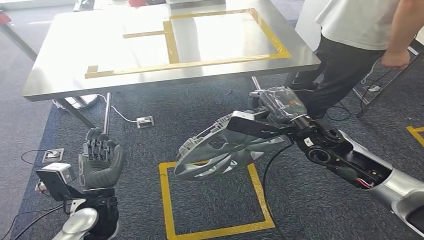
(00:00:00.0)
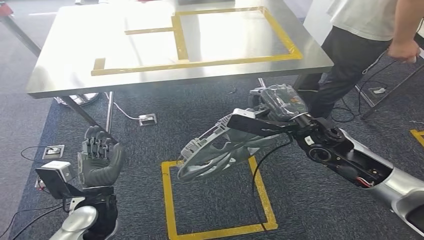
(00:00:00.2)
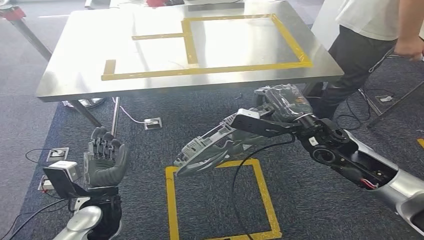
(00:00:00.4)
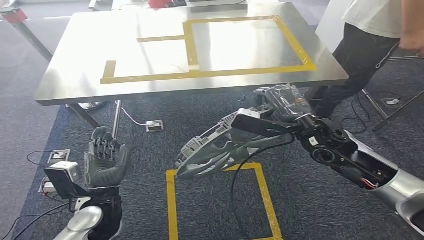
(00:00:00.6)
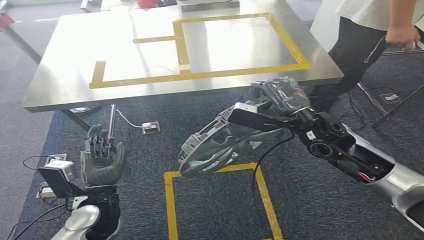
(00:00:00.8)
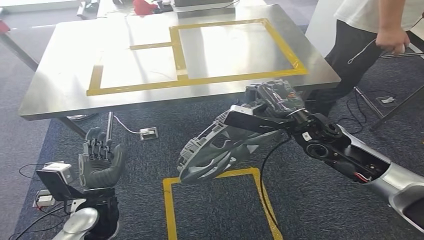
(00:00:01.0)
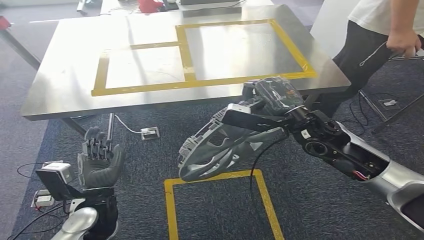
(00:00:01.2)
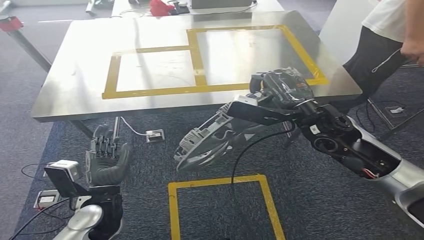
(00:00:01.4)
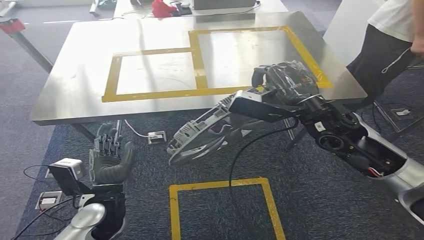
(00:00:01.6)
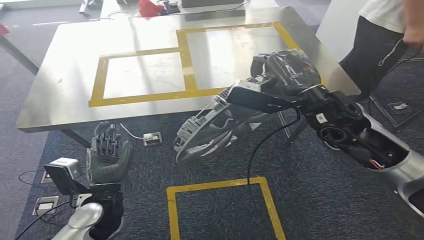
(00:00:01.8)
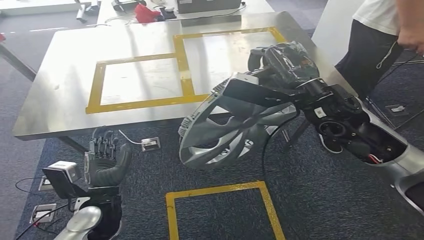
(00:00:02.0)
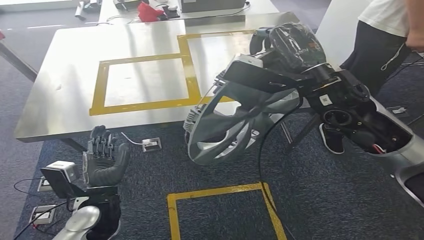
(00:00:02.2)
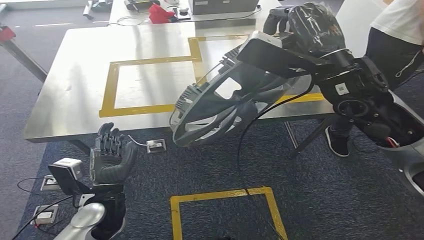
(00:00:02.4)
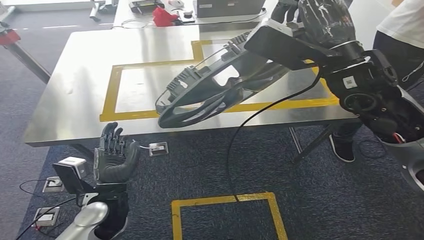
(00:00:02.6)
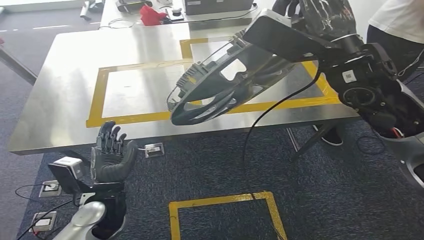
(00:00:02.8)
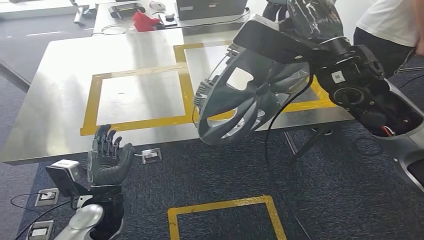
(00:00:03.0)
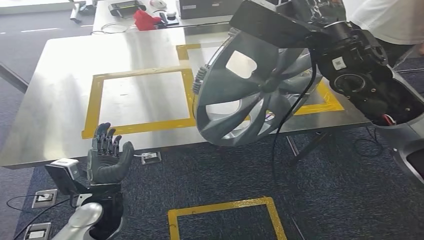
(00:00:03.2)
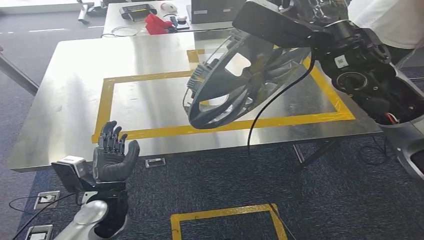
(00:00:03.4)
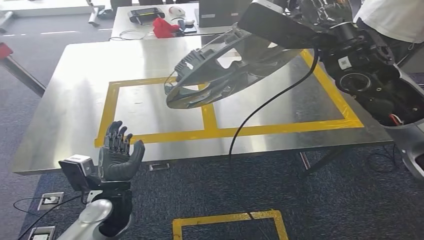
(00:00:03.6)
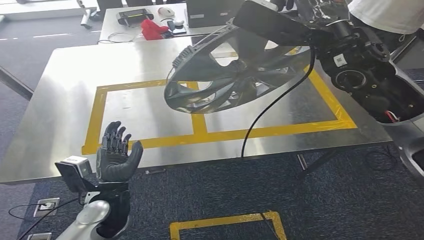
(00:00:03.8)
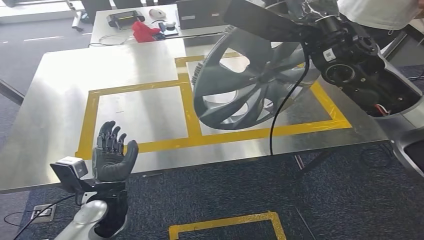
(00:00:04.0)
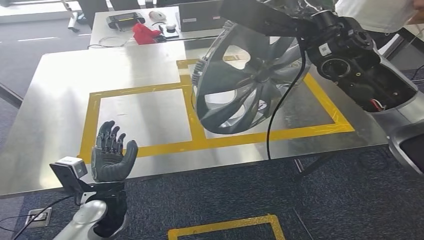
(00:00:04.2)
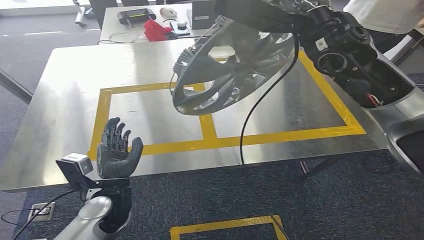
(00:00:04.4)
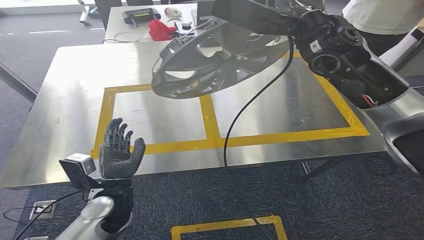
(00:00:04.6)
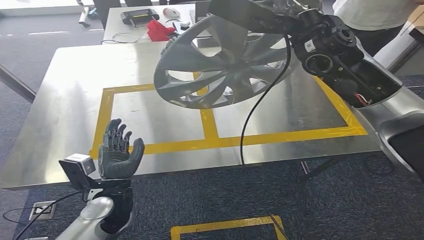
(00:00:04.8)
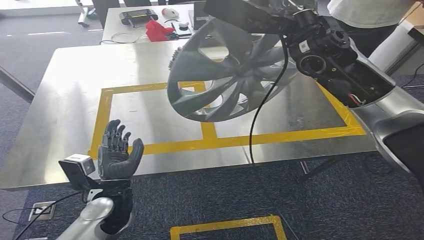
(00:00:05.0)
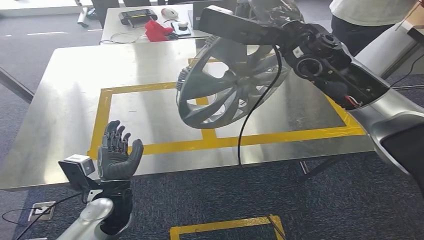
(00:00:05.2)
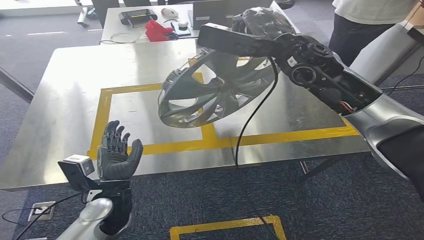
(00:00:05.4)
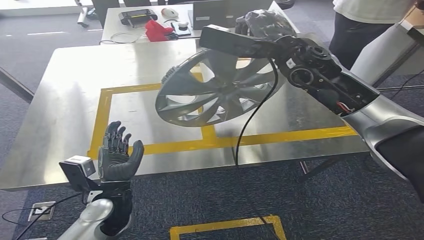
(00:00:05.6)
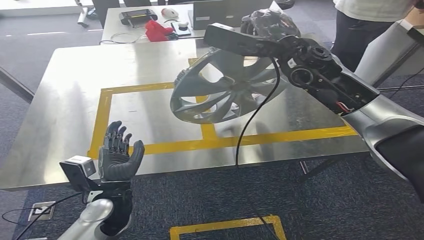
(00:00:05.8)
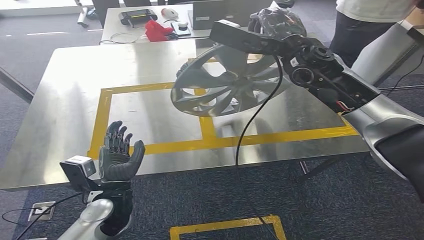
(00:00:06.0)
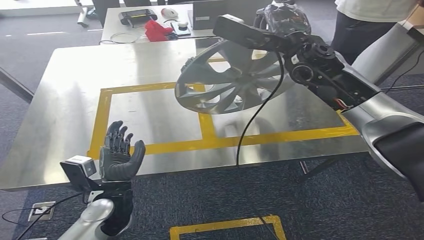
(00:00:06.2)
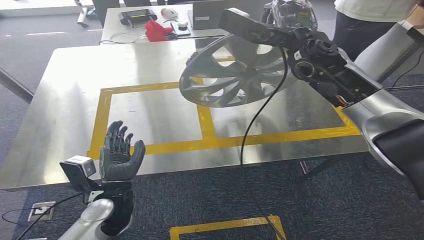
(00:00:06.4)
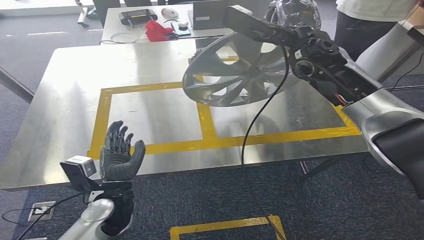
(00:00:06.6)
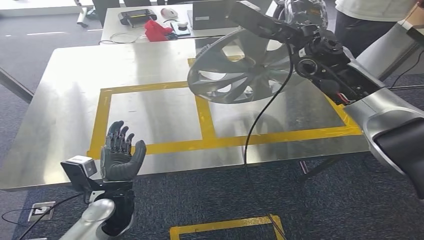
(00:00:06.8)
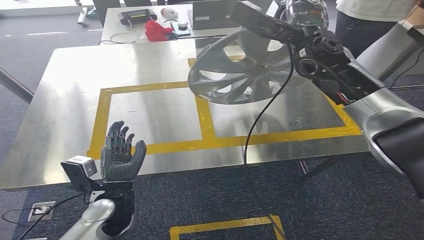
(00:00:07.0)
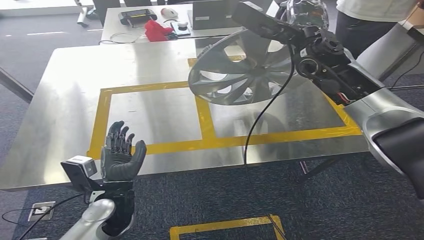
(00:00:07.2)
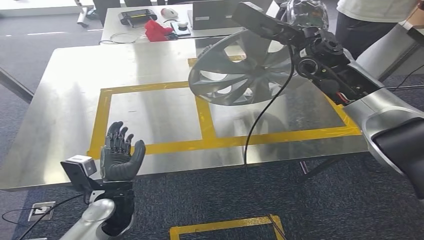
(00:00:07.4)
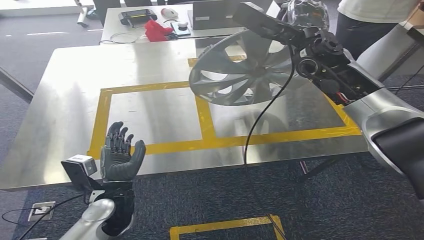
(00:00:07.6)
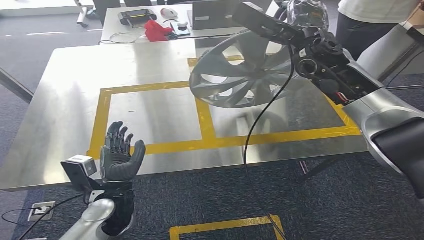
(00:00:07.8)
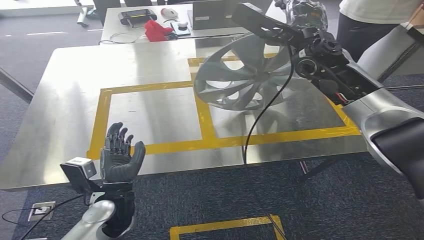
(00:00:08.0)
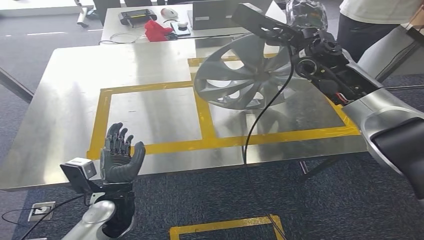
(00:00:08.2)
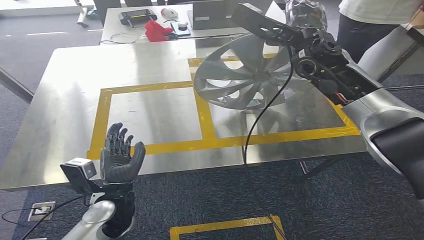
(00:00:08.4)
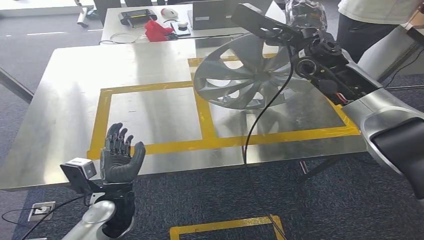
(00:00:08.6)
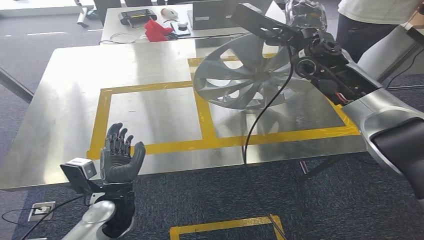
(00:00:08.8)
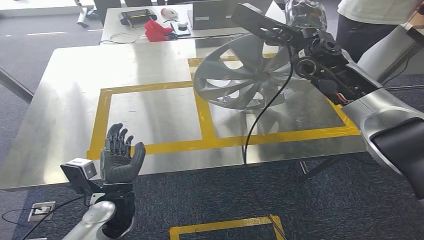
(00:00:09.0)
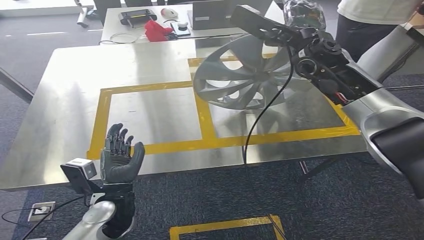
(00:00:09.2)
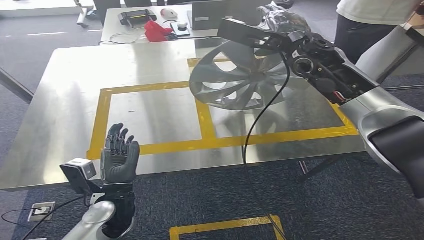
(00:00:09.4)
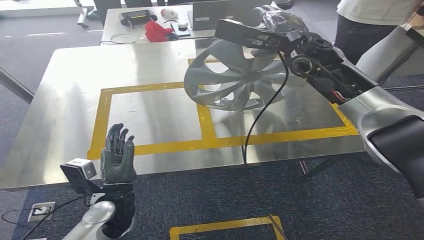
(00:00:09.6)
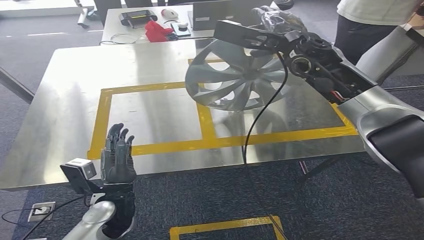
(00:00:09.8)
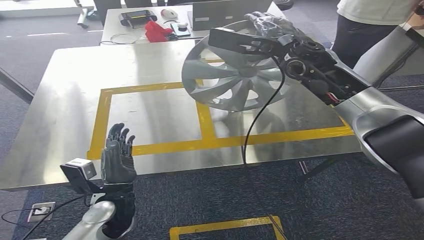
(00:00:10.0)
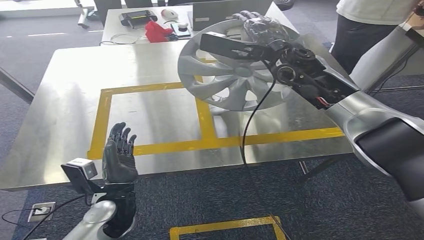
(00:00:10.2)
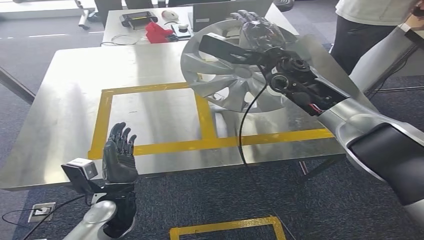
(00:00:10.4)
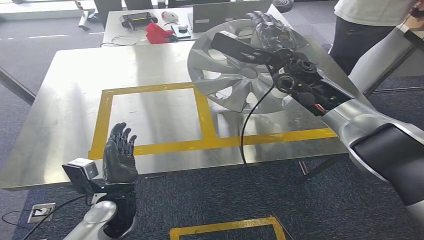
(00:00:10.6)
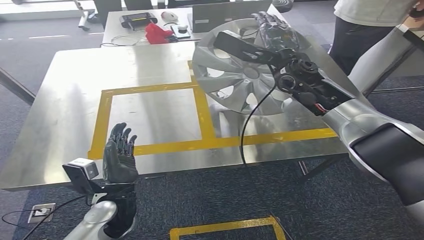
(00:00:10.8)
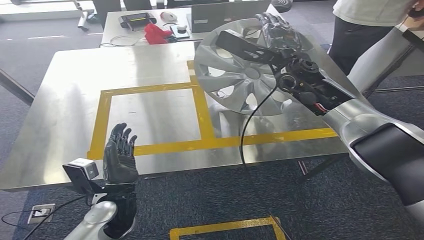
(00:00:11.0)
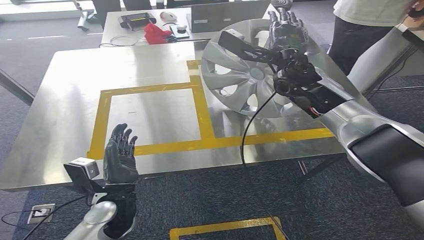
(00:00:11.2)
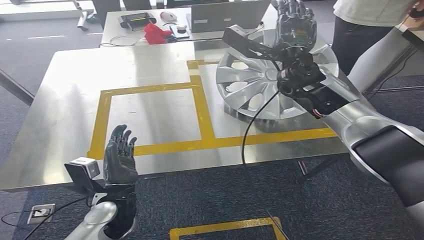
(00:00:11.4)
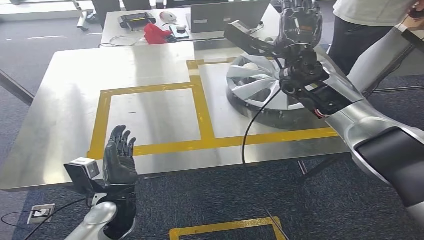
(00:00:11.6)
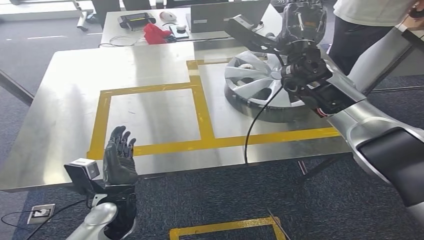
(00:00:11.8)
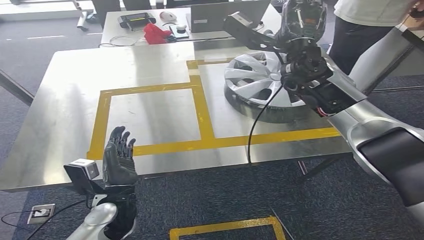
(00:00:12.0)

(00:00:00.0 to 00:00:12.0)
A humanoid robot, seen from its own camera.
Step, 00:00:00.0 - 00:00:07.0: Move the small parts to the workbench.
00:00:06.0 - 00:00:07.6: The hands stay close to where they were, moving slightly.
00:00:07.6 - 00:00:09.0: Both hands stay put.

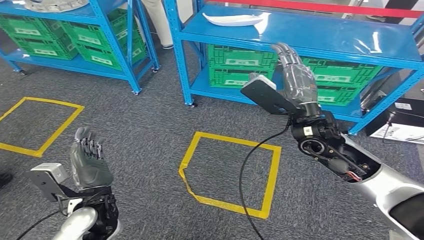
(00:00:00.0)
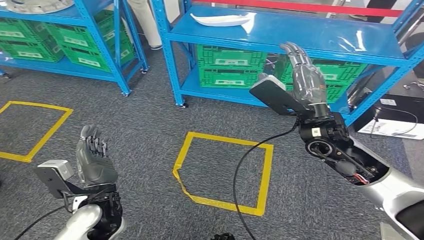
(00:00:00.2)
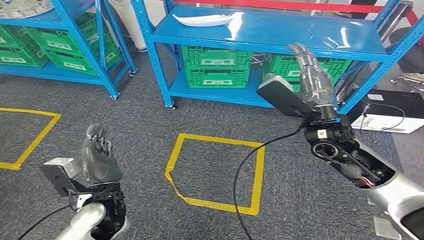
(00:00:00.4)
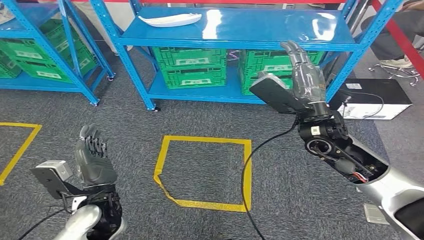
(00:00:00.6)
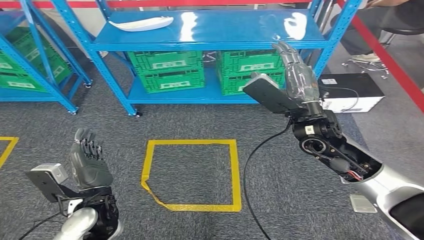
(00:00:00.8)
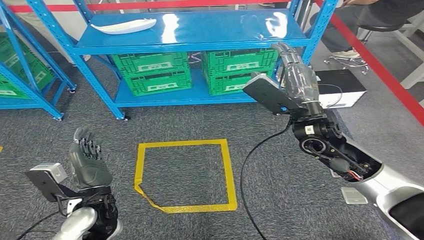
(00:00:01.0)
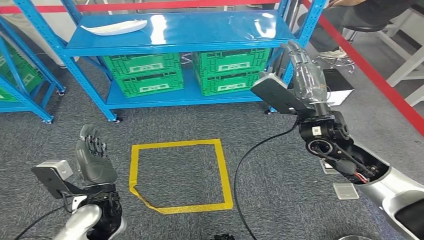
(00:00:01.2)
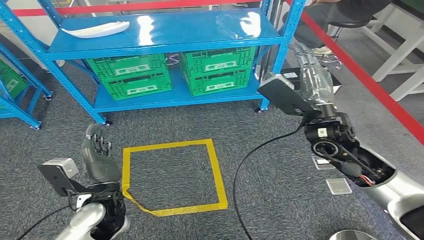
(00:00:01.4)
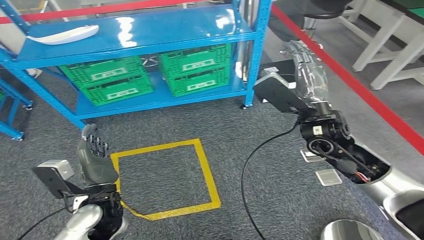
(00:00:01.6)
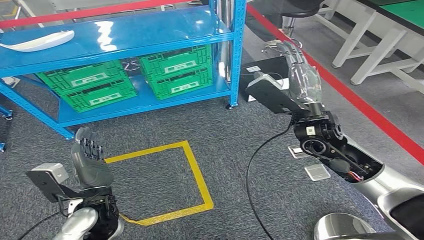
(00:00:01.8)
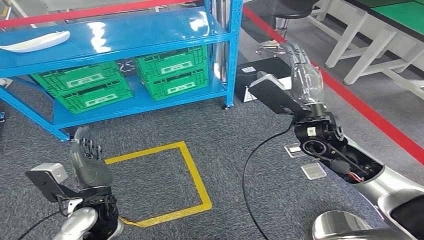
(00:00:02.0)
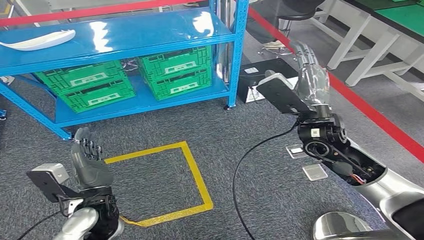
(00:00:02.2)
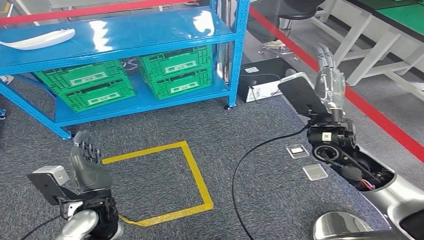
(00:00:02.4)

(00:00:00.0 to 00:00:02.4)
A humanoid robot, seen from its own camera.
Step, 00:00:00.0 - 00:00:02.4: Return to the initial position at the workbench.
